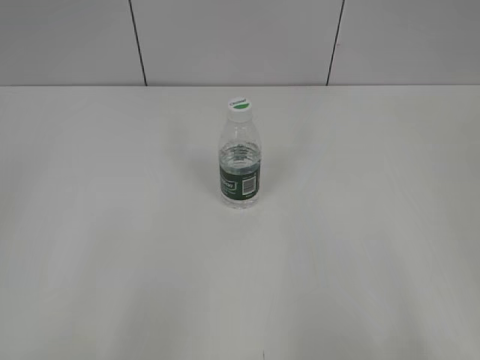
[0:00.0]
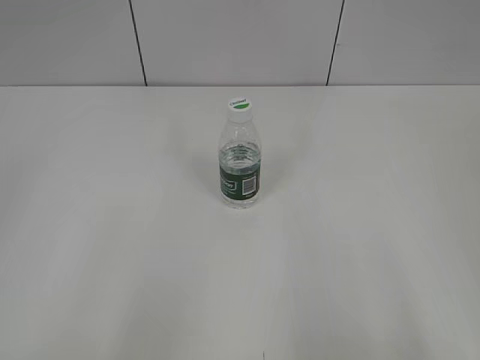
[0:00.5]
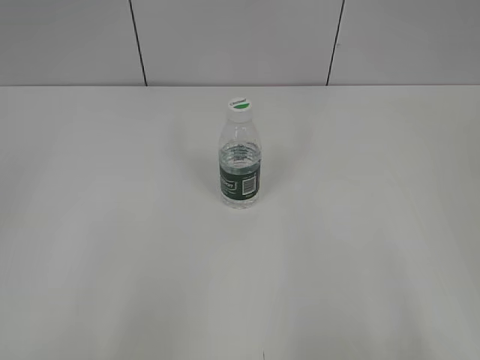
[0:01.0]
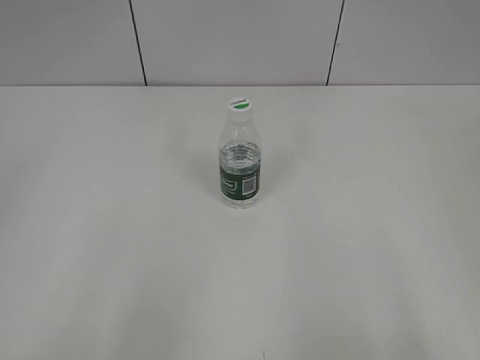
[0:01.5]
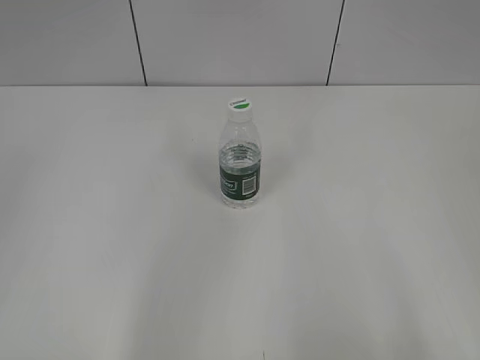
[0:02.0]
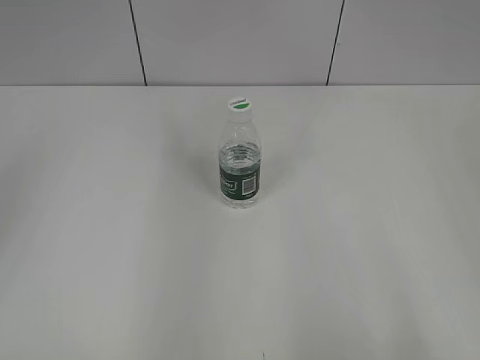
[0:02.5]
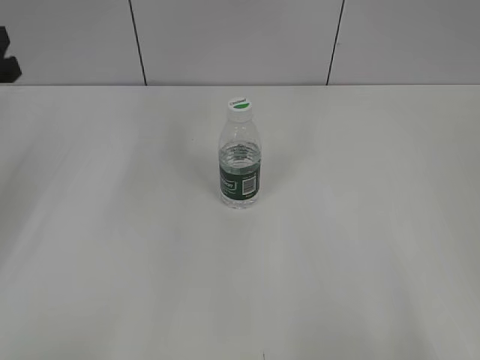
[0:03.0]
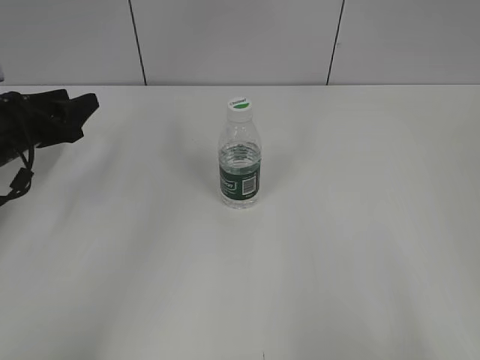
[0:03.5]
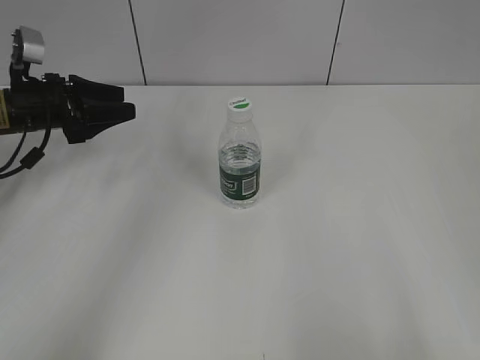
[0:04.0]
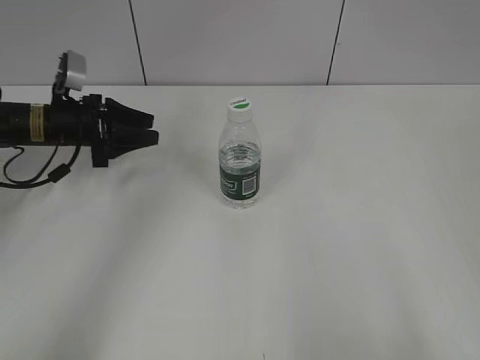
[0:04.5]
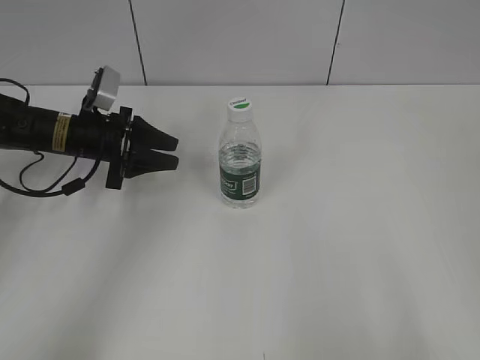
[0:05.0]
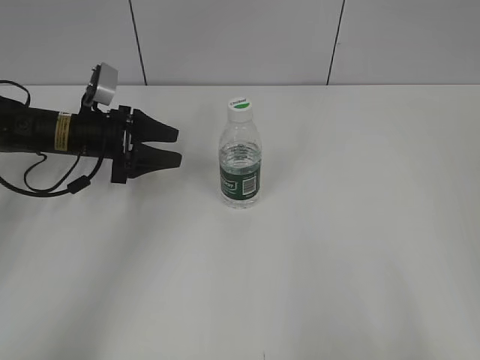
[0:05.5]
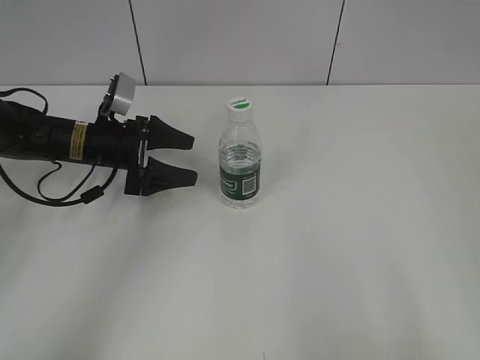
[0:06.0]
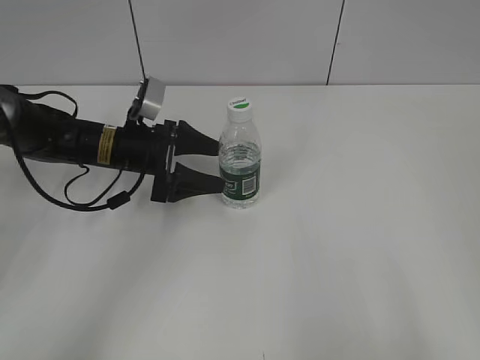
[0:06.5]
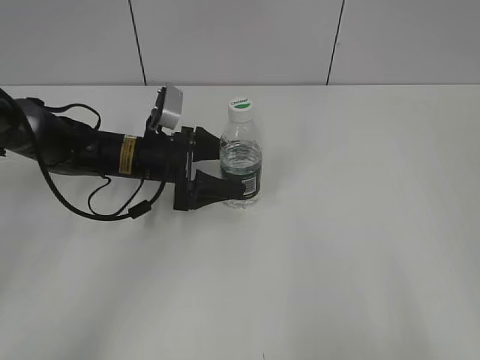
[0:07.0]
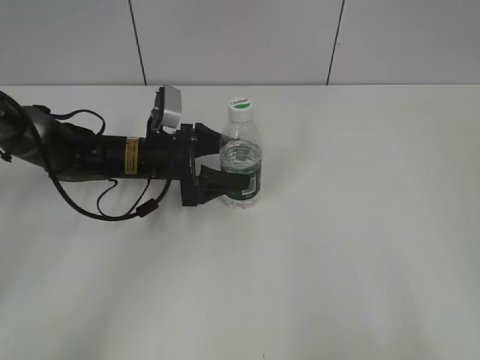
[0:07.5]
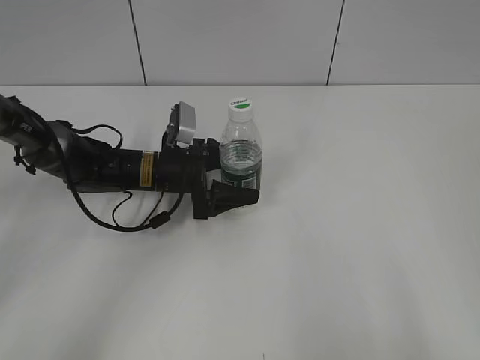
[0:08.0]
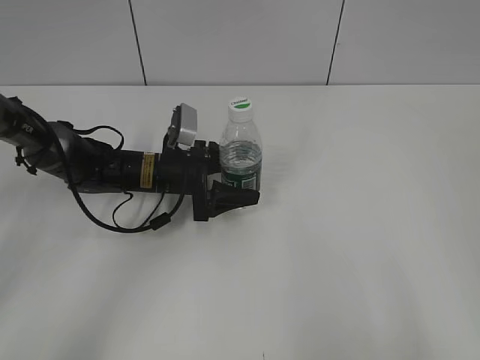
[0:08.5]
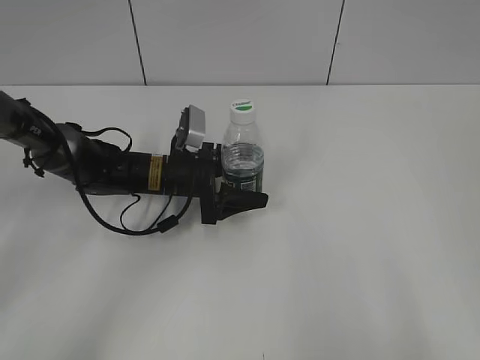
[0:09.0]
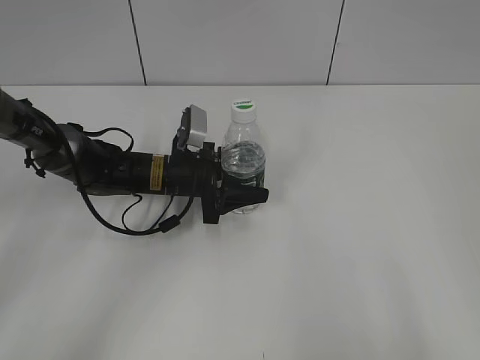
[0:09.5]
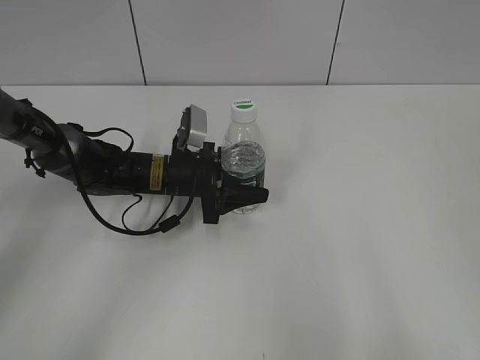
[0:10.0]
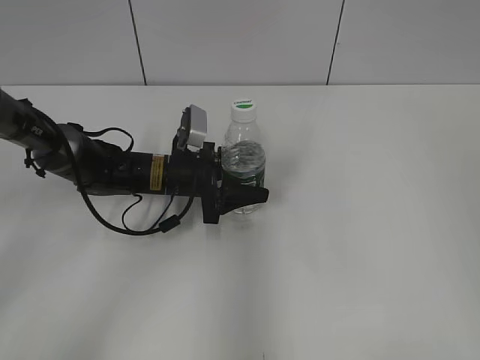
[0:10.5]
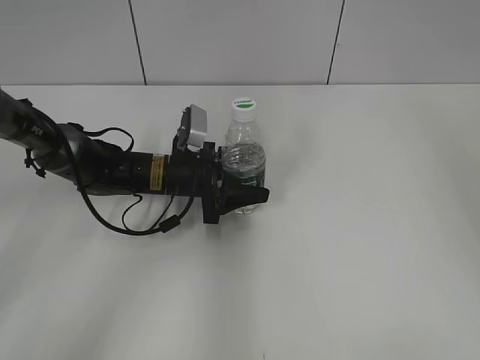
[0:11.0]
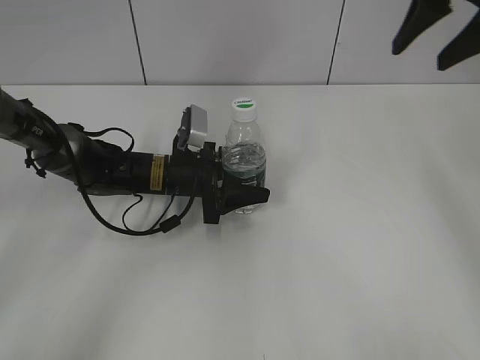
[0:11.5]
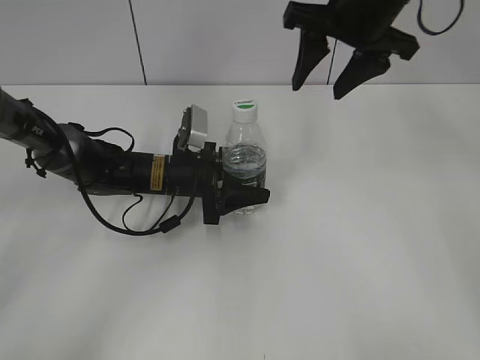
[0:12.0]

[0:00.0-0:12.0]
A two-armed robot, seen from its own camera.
0:02.0 to 0:04.0: The left gripper shifts approximately 40 cm forward and downward.
0:04.0 to 0:06.0: The left gripper heads to the right and downward, covering roughly 10 cm, and opens up.
0:06.0 to 0:08.0: The left gripper shifts about 10 cm to the right.
0:08.0 to 0:10.0: The left gripper closes its fingers.
0:10.0 to 0:12.0: The right gripper is displaced forward and to the left by about 40 cm.

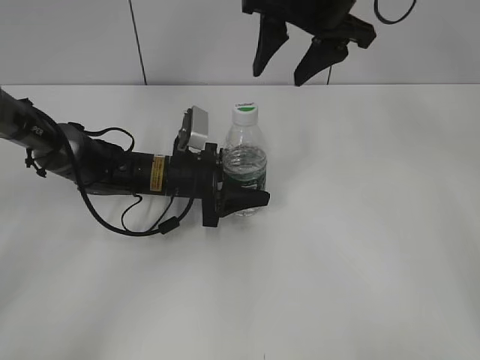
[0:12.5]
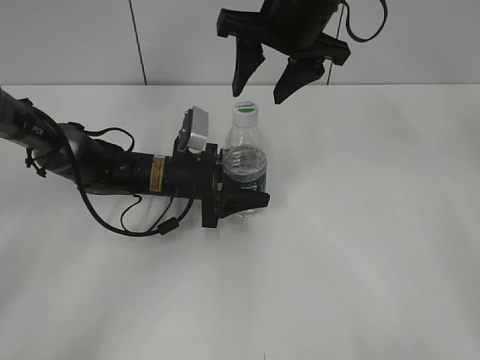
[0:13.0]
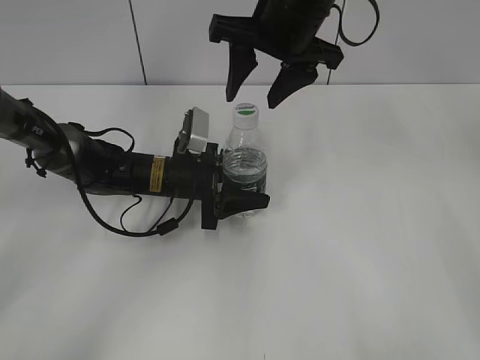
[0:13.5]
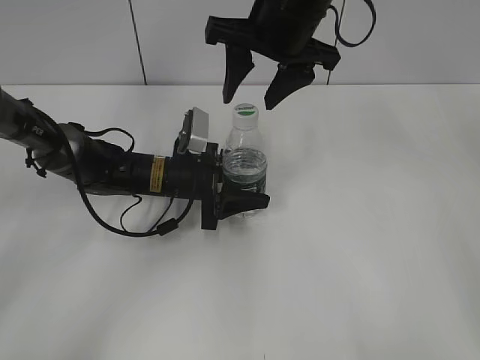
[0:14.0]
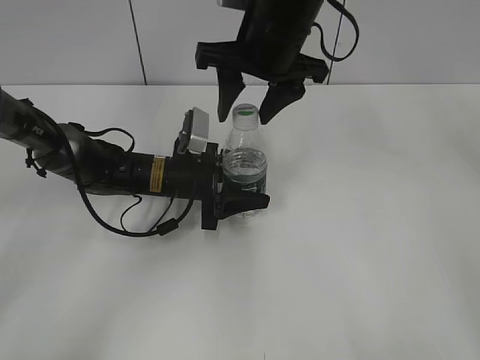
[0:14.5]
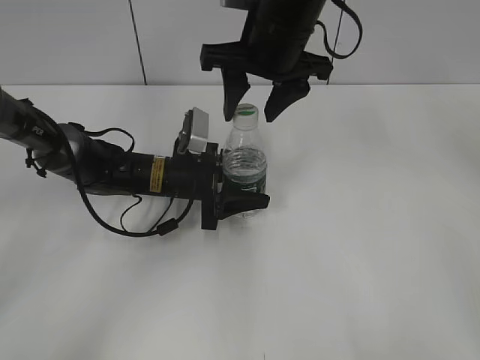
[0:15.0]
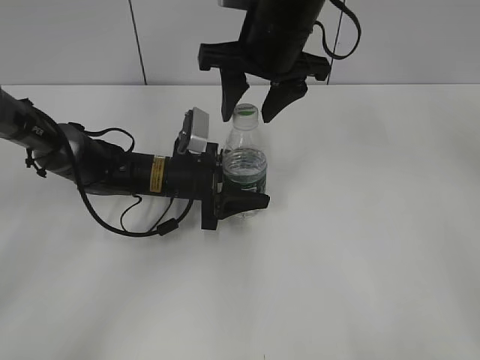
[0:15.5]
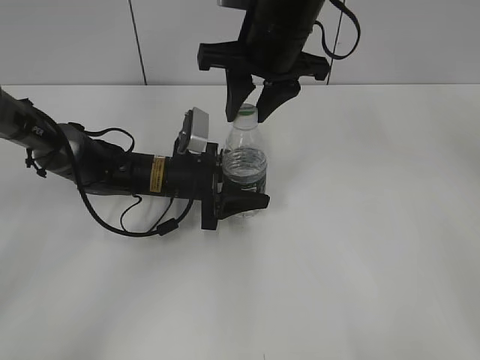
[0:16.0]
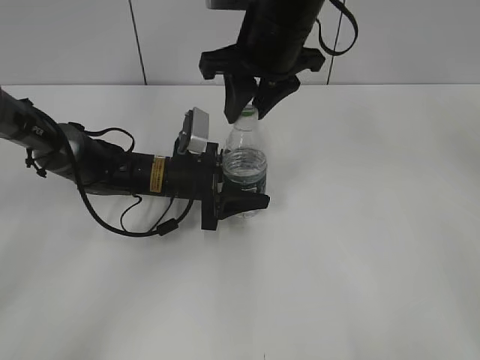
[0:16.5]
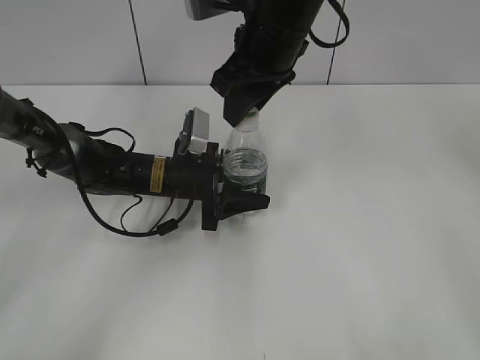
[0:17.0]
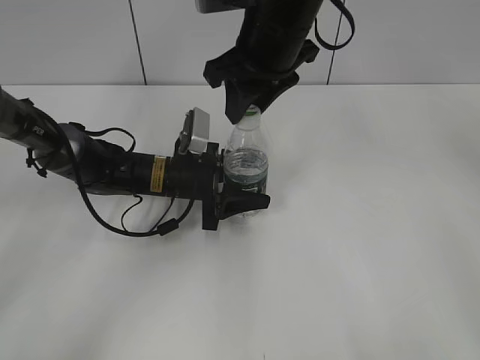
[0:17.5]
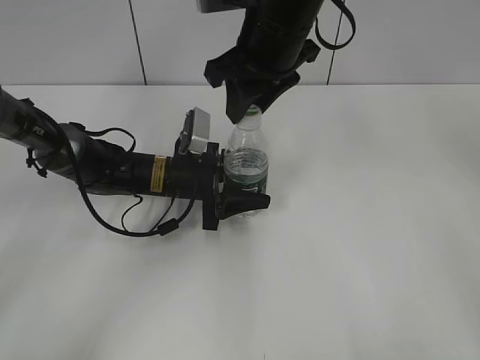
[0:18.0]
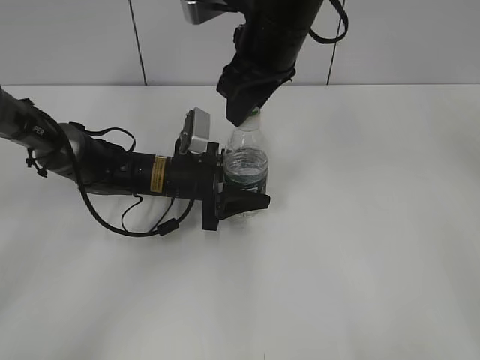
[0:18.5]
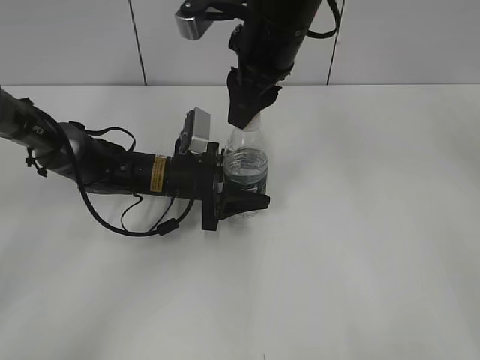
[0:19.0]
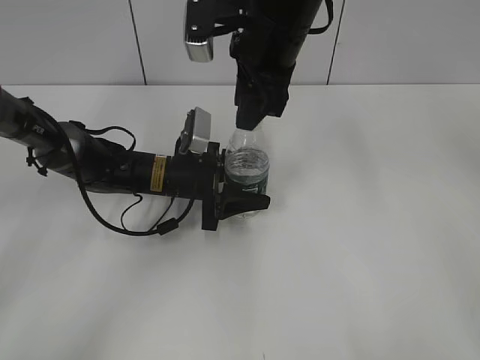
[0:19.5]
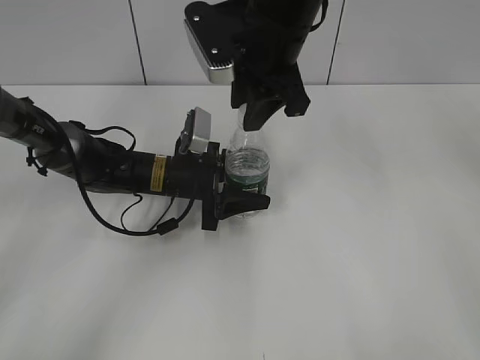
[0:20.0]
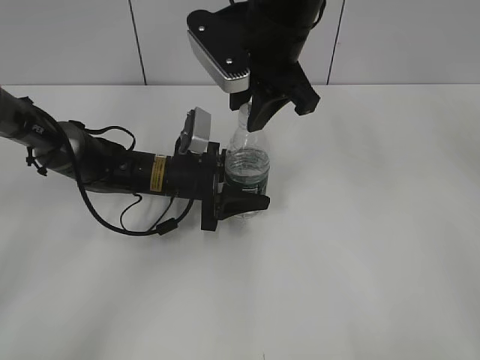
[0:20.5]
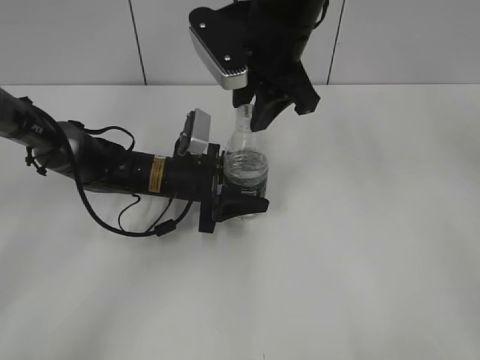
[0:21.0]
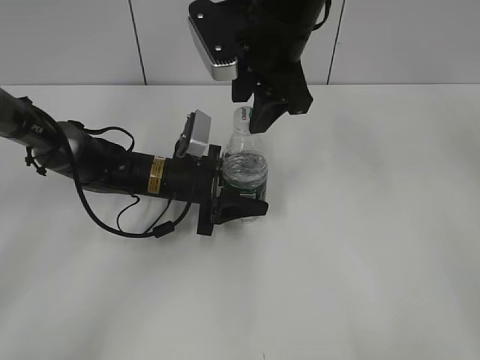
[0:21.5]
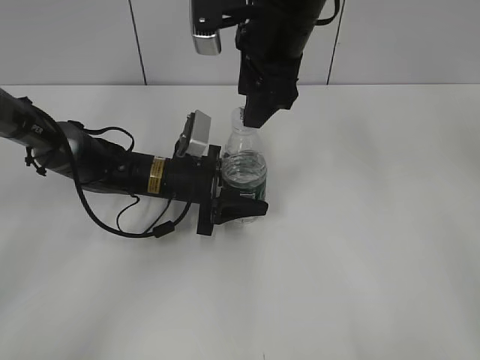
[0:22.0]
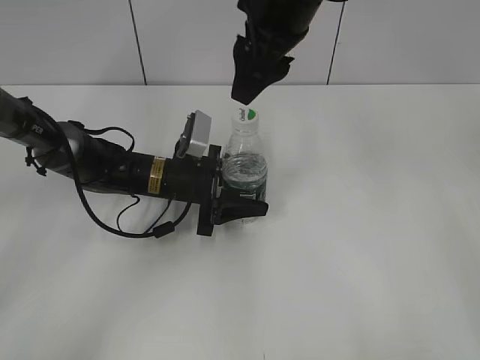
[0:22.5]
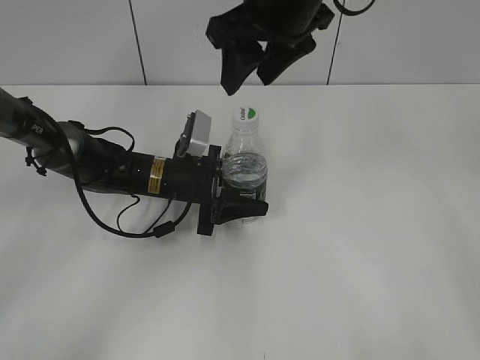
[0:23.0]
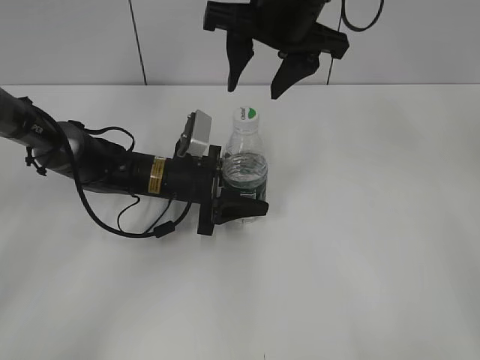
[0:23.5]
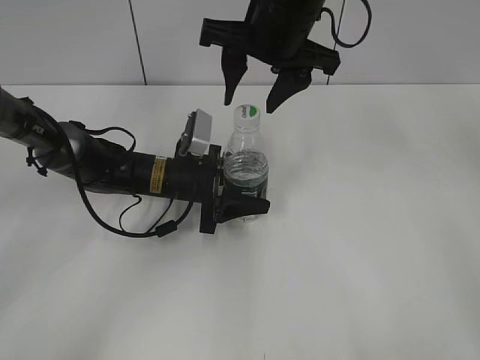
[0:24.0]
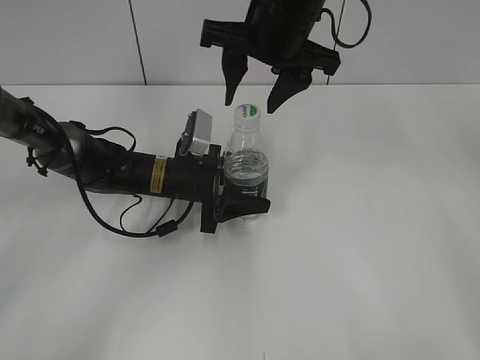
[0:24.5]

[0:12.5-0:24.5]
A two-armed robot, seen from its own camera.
0:12.5 to 0:14.5: The right gripper is displaced to the left by some 5 cm.
0:14.5 to 0:16.5: The right gripper closes its fingers.
0:20.5 to 0:22.5: The right gripper opens.

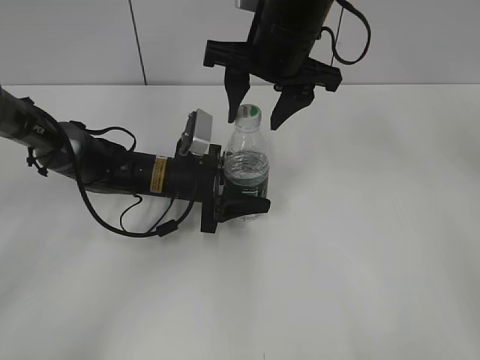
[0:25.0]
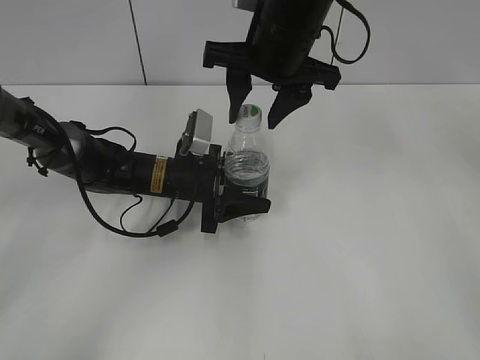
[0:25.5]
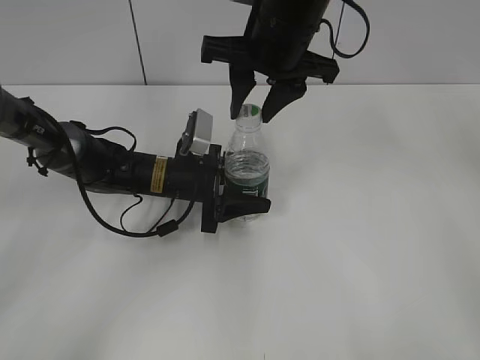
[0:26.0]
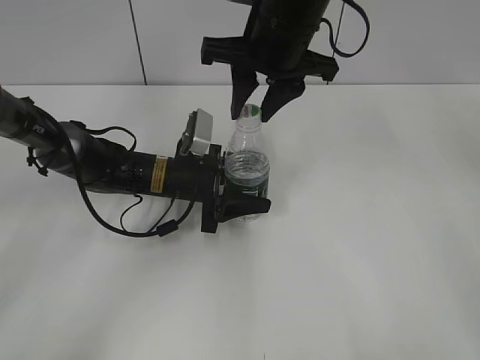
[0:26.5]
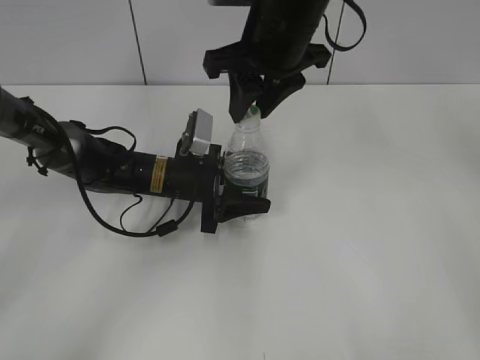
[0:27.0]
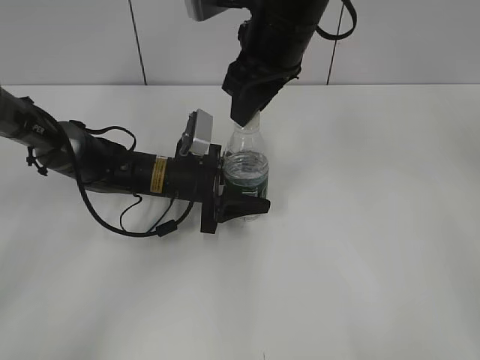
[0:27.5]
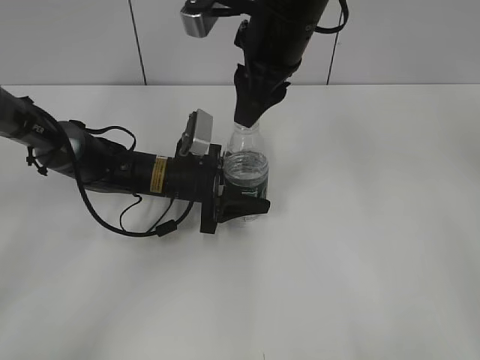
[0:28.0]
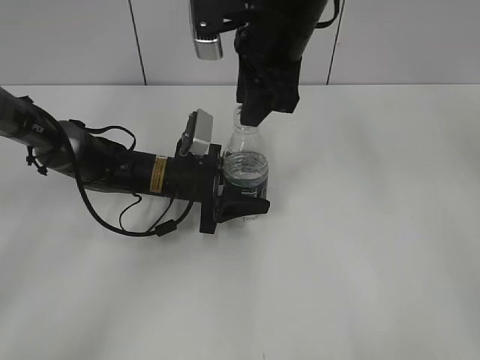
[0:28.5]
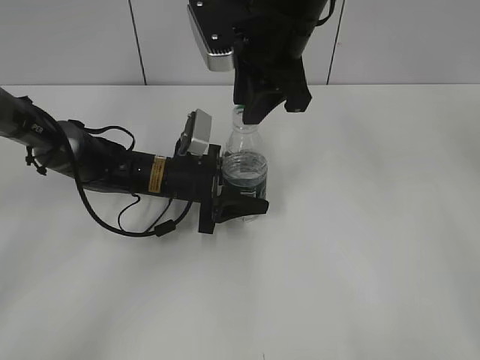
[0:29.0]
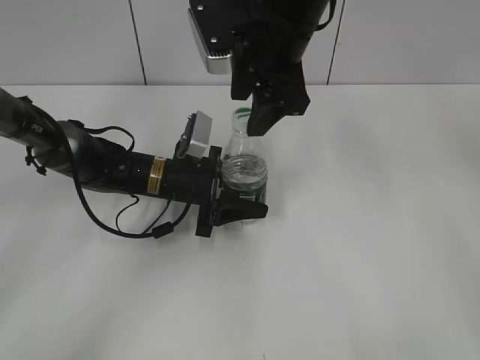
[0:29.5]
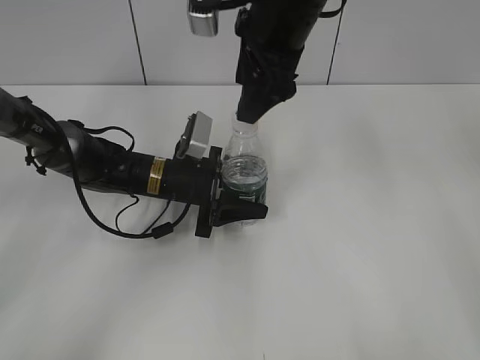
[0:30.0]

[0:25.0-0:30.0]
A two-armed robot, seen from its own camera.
0:25.0 to 0:27.5: The right gripper closes up.
0:27.5 to 0:30.0: The right gripper opens its fingers.
